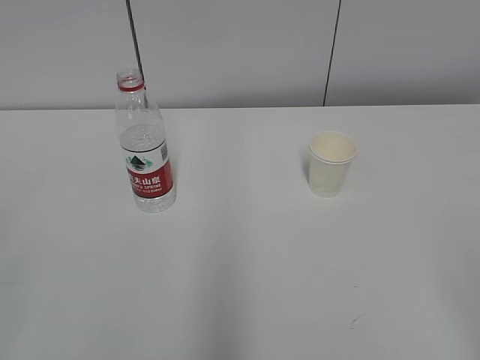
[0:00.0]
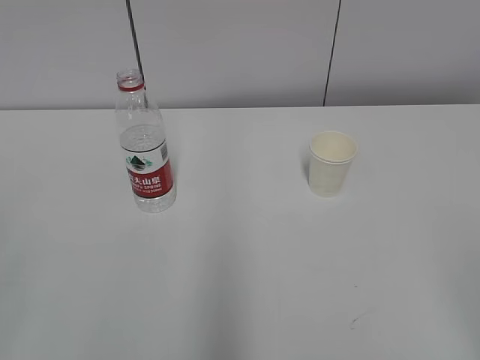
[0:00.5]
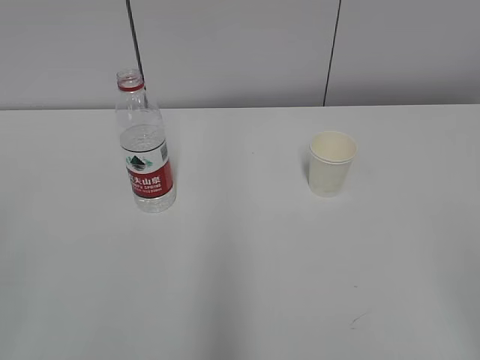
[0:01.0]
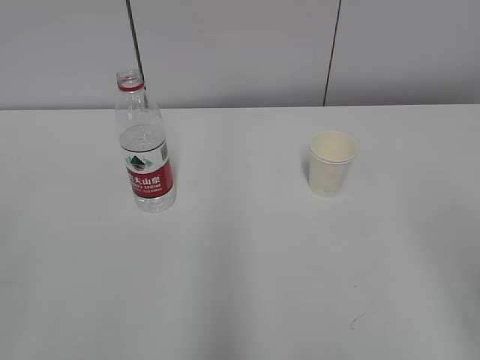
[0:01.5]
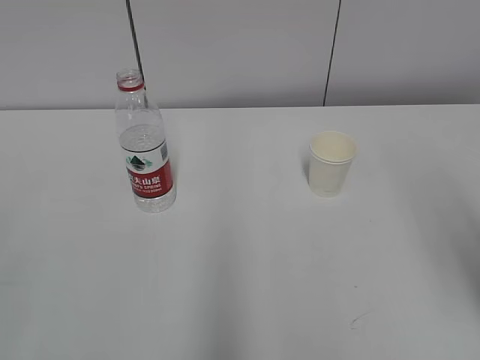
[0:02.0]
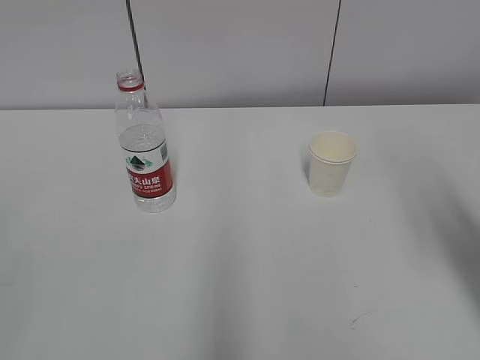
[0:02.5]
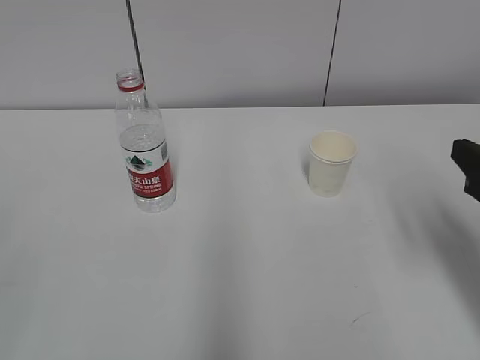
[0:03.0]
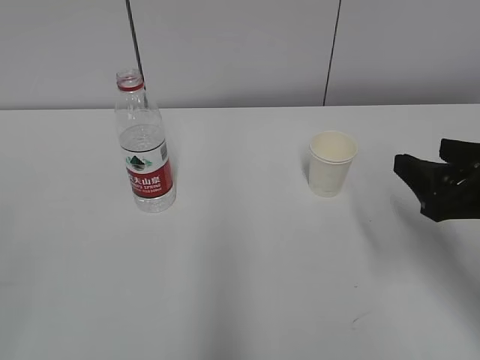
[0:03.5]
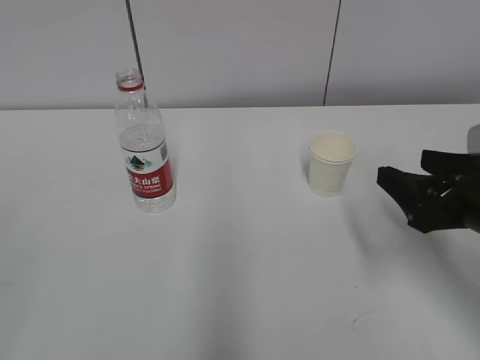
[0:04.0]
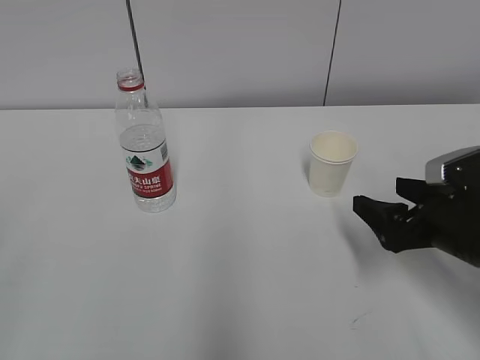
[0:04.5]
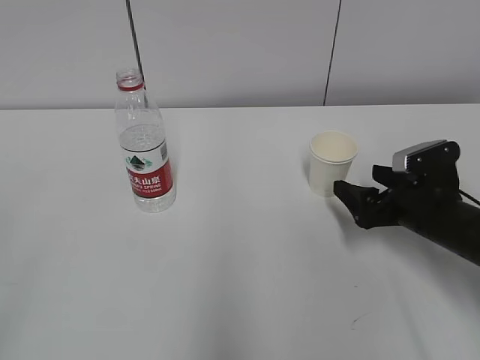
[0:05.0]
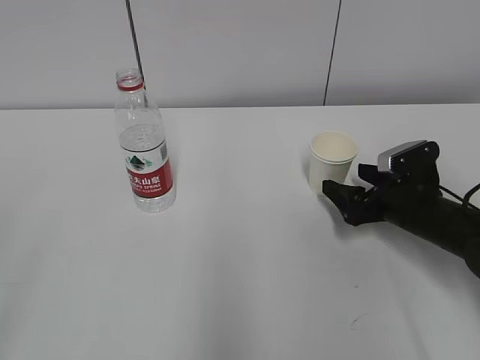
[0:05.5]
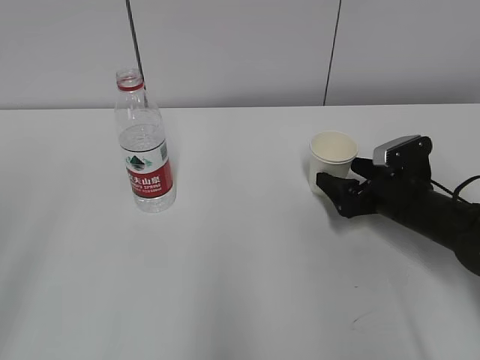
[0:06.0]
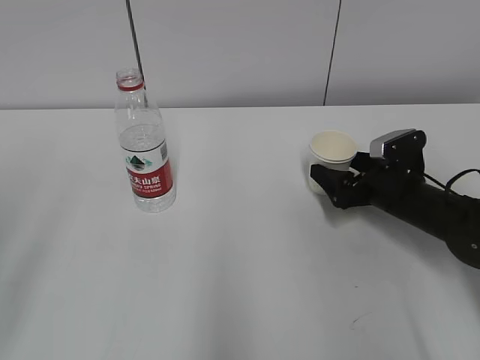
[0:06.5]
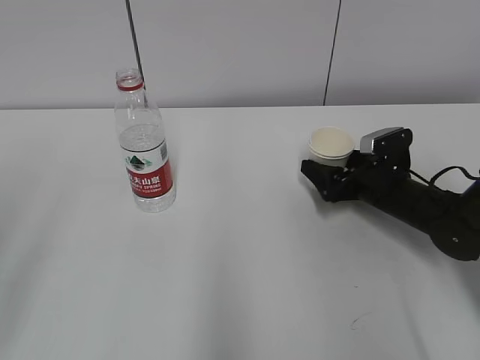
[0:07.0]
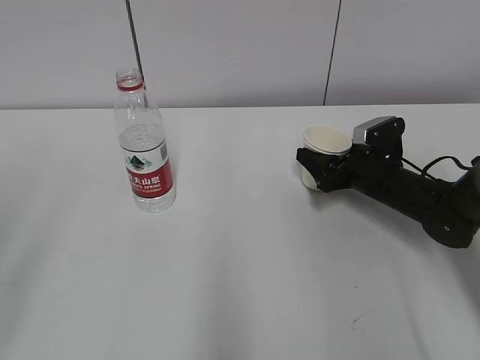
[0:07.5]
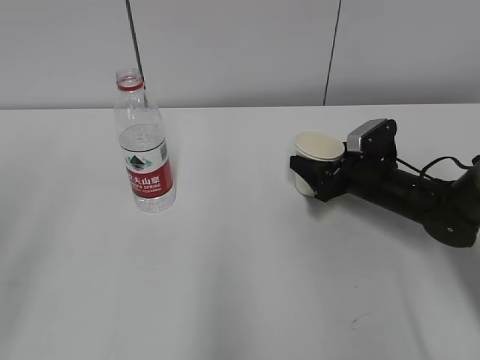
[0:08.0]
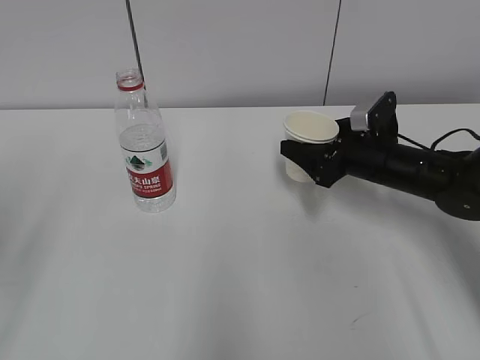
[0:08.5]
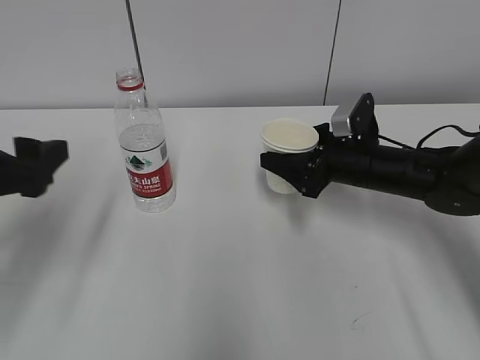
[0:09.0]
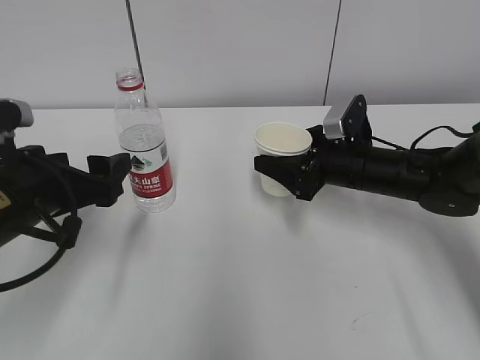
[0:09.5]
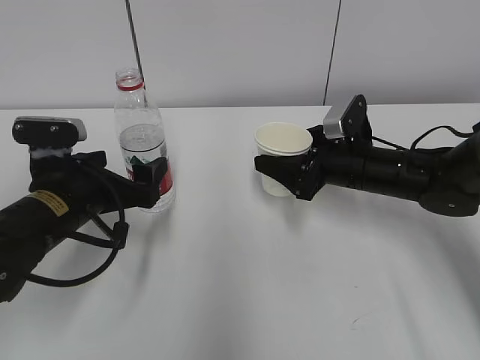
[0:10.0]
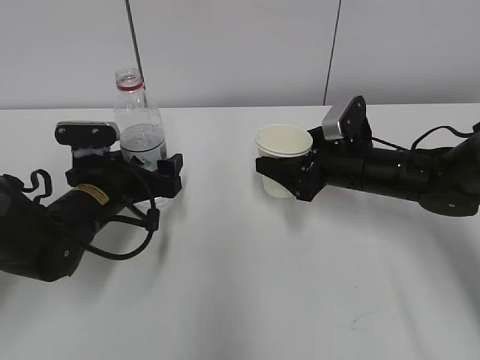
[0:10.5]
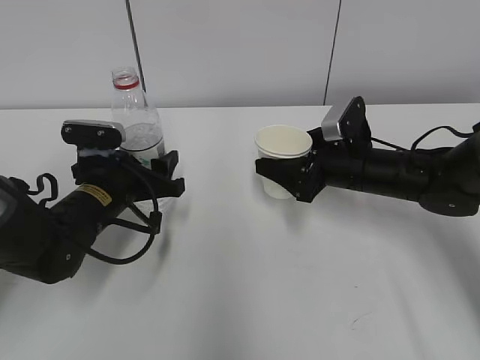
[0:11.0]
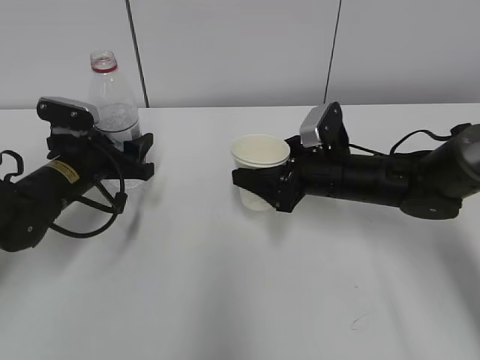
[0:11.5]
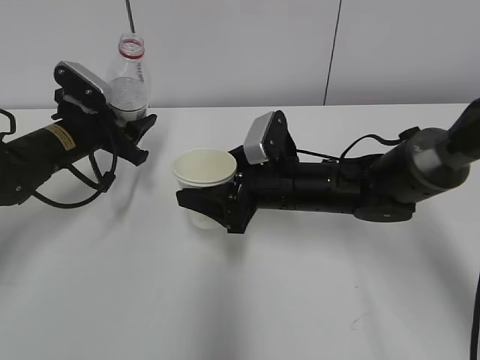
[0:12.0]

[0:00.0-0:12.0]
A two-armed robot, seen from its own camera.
Step, 0.0 to 6.5 s: Grab the paper cup with the right hand.
Step, 7.0 to 9.0 s: Grab the water bottle with the left hand.
2.0 to 4.0 s: The right gripper moves downward and forward, about 20 cm.
4.0 to 6.0 s: The right gripper shifts approximately 15 cm forward and downward, and opens its fingers.
6.0 to 8.0 s: The right gripper moves roughly 5 cm, and closes.
8.0 to 10.0 s: The left gripper heads forward, downward and to the right, covering roughly 30 cm, while the right gripper travels upward by roughly 5 cm.
10.0 to 12.0 s: The left gripper travels forward by roughly 15 cm, and closes; the right gripper is displaced to the left by some 10 cm.

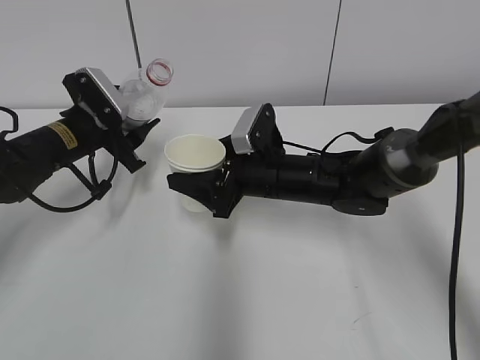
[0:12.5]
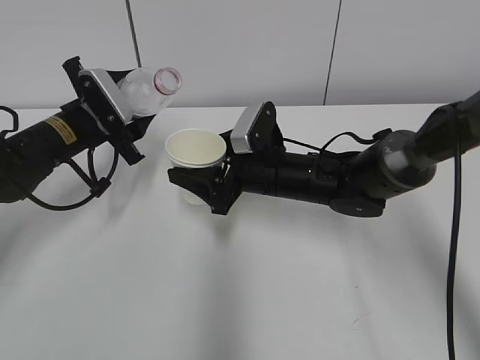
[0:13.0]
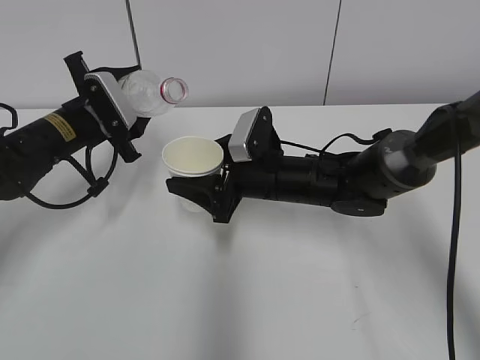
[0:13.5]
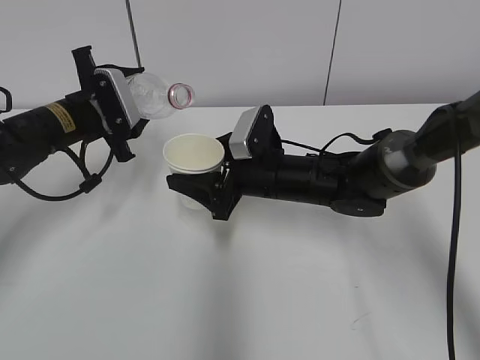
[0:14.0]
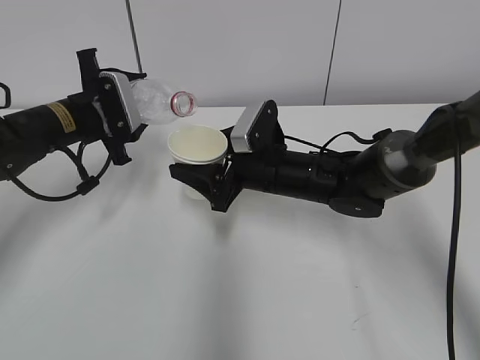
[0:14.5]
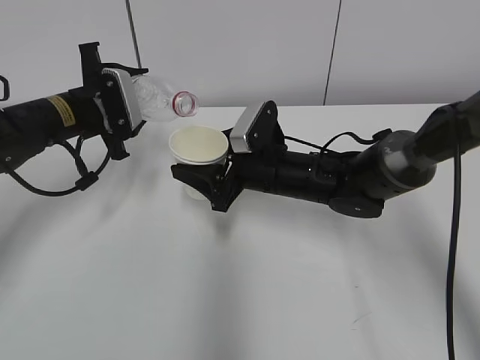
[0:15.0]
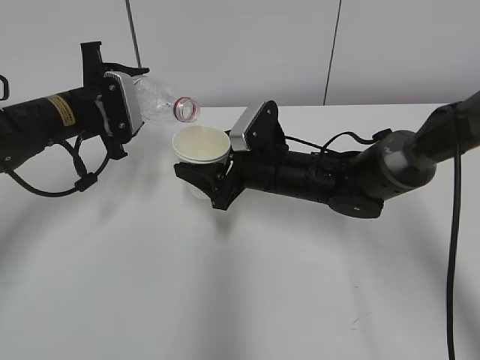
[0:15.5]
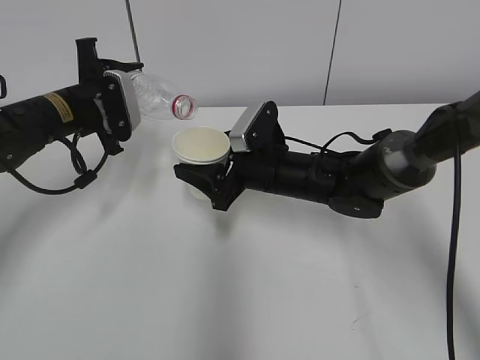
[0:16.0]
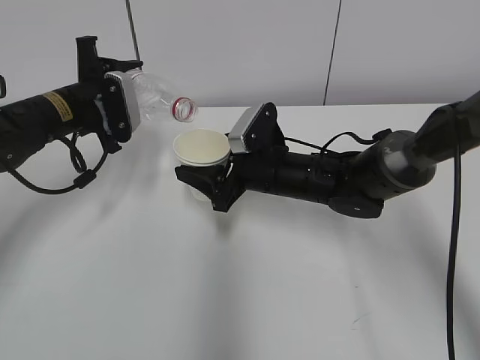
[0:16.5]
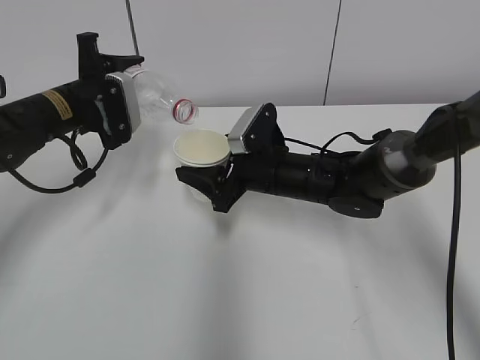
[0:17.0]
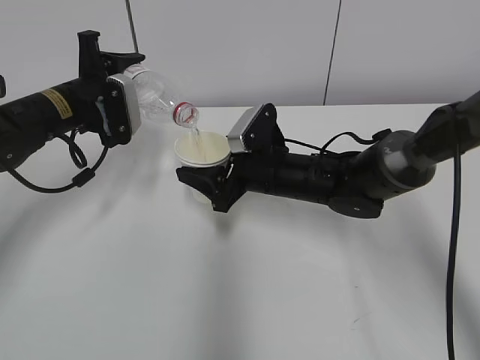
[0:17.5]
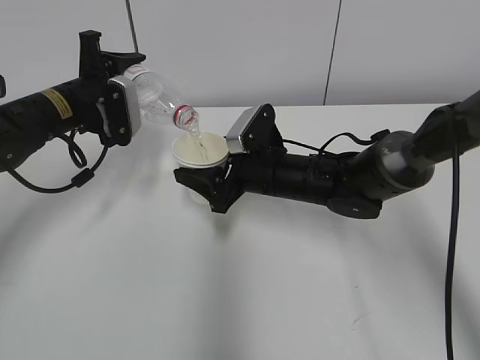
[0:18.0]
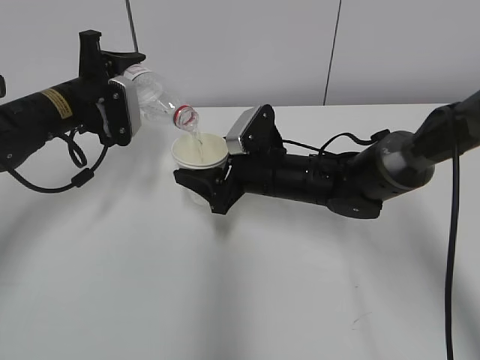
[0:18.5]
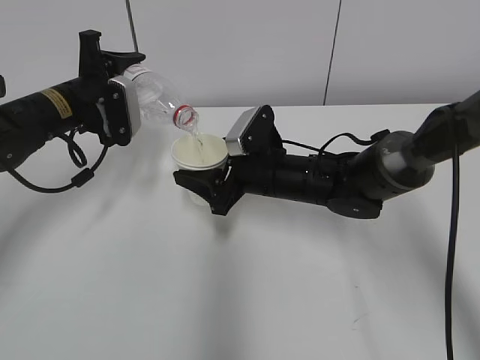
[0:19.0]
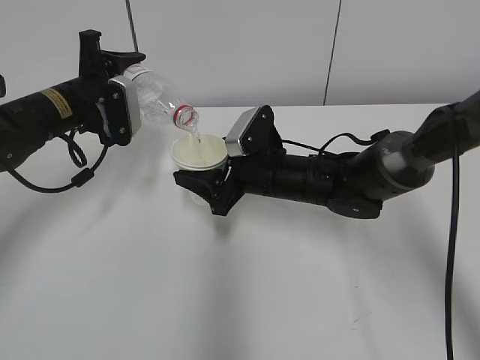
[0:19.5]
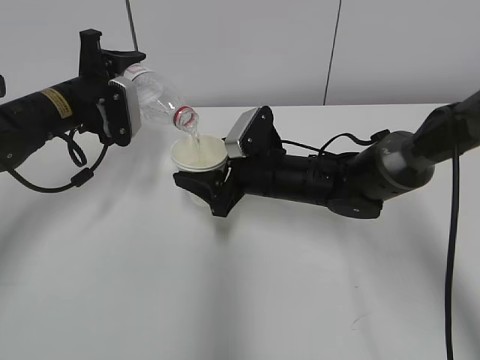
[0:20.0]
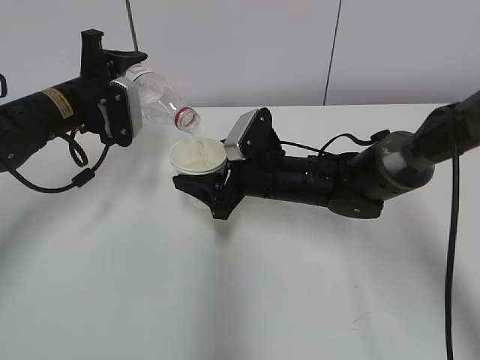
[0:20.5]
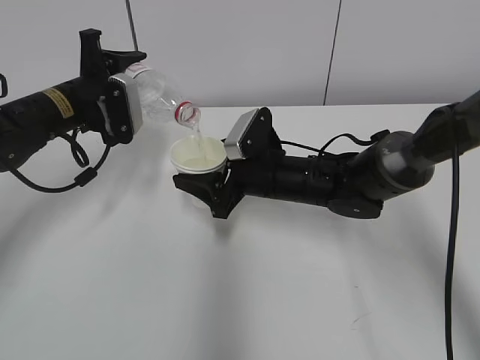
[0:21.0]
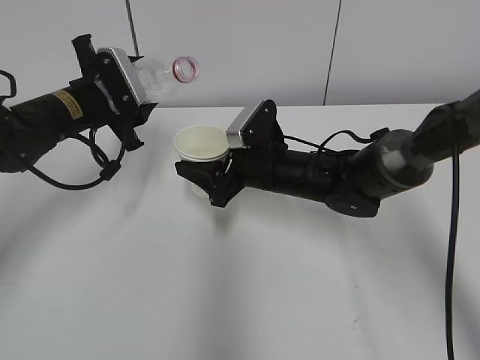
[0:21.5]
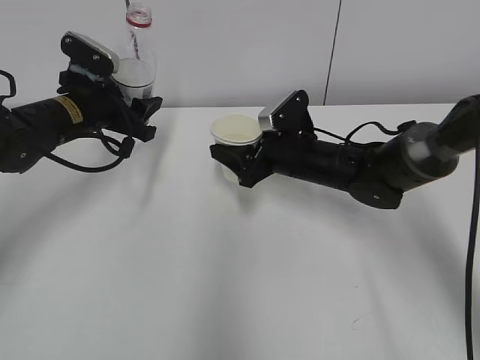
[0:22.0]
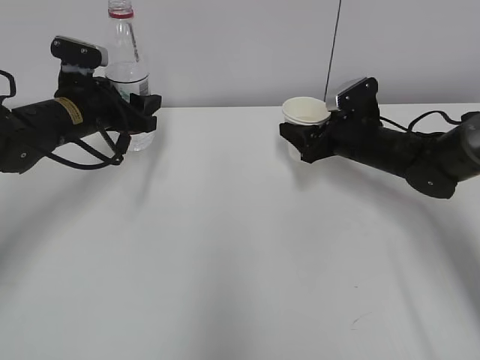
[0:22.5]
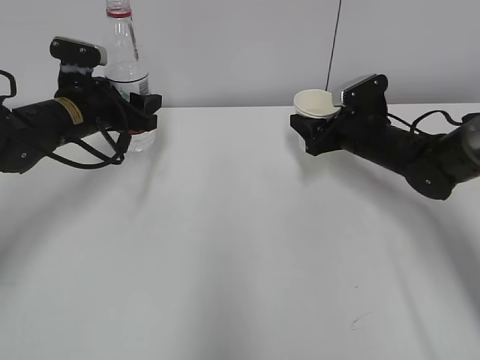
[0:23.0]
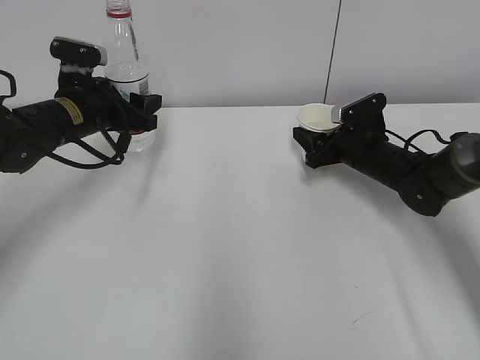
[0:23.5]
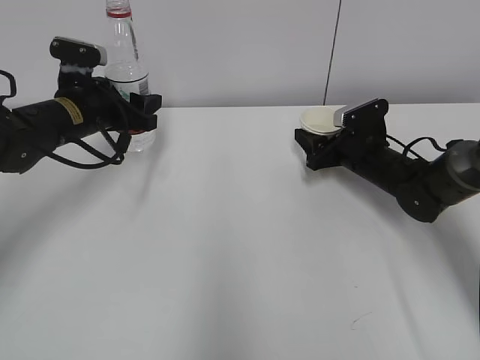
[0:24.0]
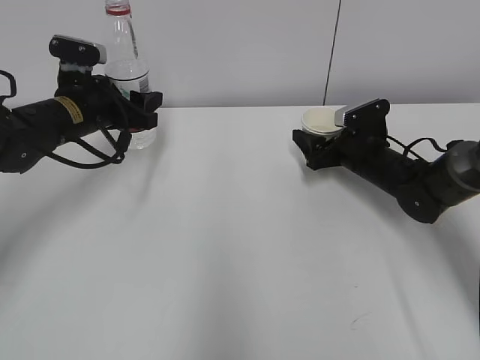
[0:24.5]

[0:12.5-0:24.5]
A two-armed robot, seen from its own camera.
Step, 14.5 to 17.5 s: Fill water with the right hand.
Step, 14.5 to 17.5 s: Pour water with the left hand.
14.5 to 16.5 s: The grippers move only a little.
16.5 to 18.5 s: The grippers stay close to where they were, moving slightly.
18.5 to 20.5 s: Neither gripper changes place.
20.5 to 22.5 s: The right gripper goes roughly 15 cm to the right.
22.5 to 24.5 s: The right gripper opens.

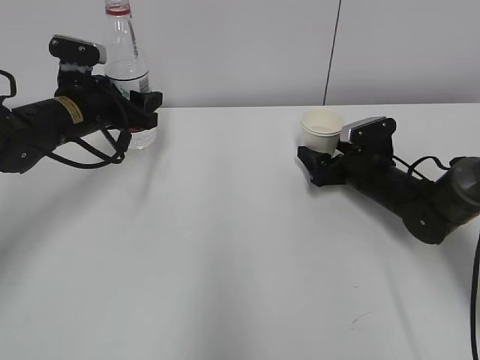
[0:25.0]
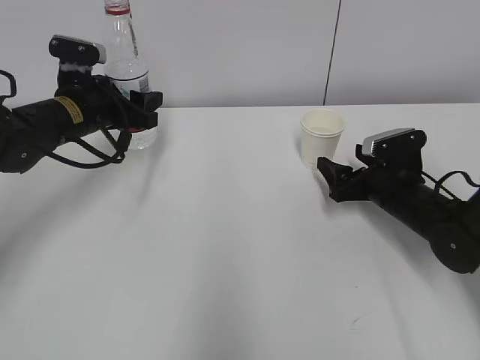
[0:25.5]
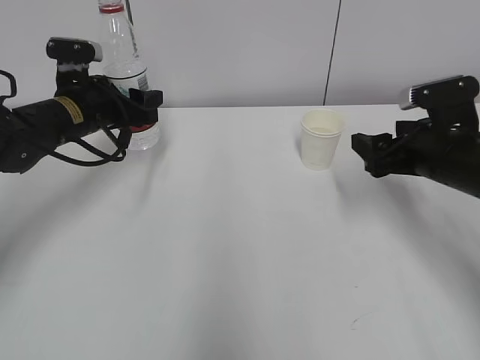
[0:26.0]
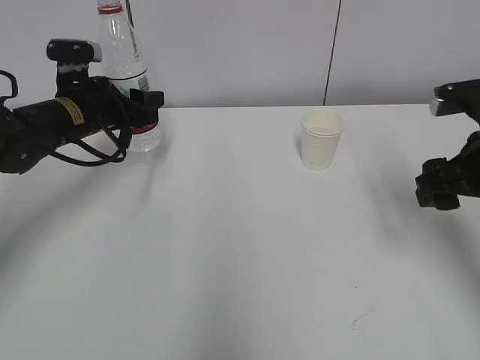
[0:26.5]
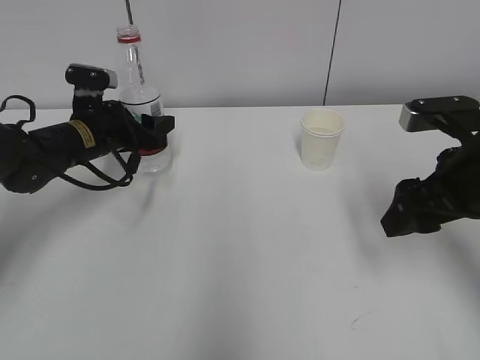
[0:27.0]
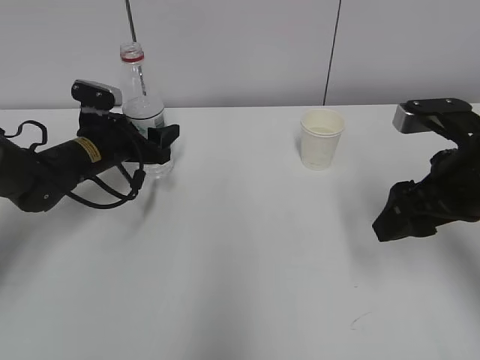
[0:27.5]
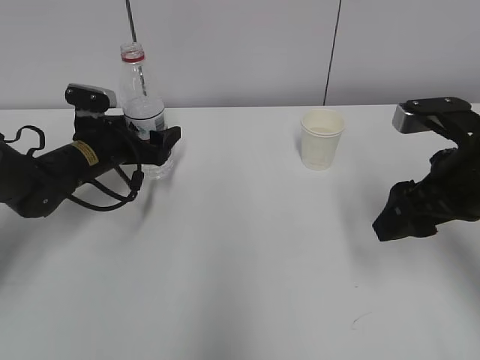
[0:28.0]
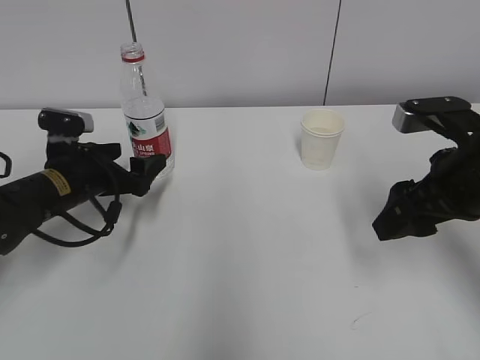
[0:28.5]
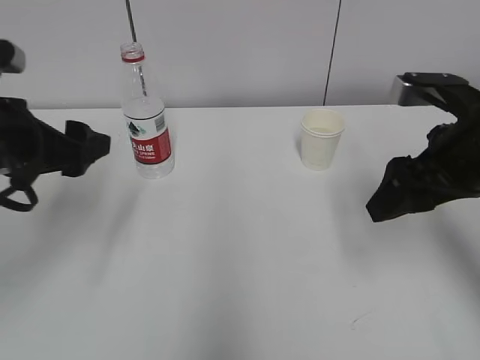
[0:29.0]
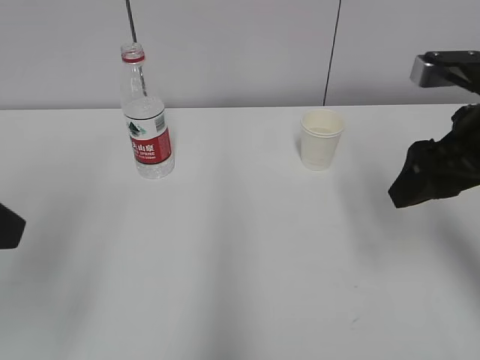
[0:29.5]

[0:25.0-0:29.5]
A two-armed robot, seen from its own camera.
25.0 to 27.0 s: The right gripper is displaced upward and backward by about 25 cm, and closes.
27.0 to 29.5 s: The left gripper is displaced backward and upward by about 30 cm.
